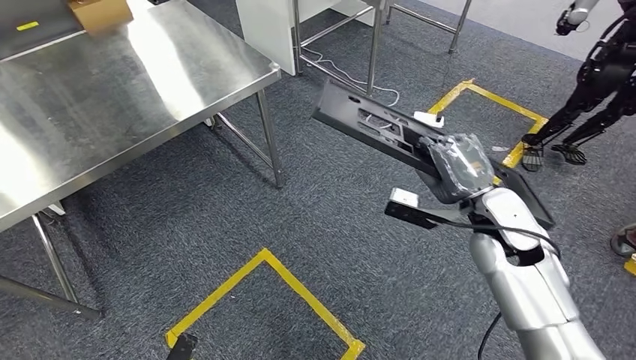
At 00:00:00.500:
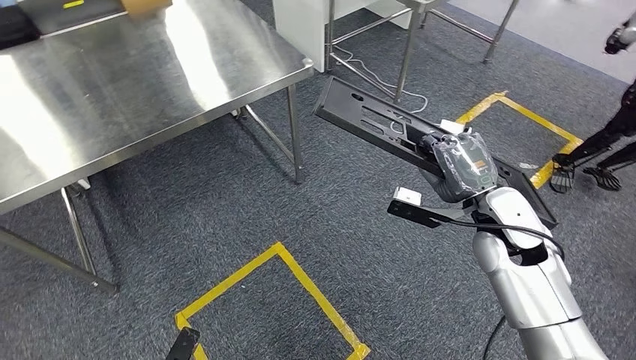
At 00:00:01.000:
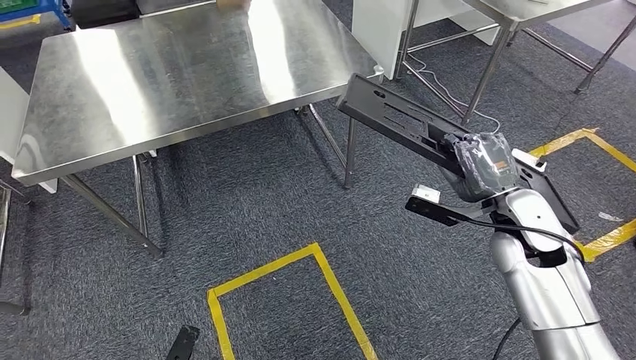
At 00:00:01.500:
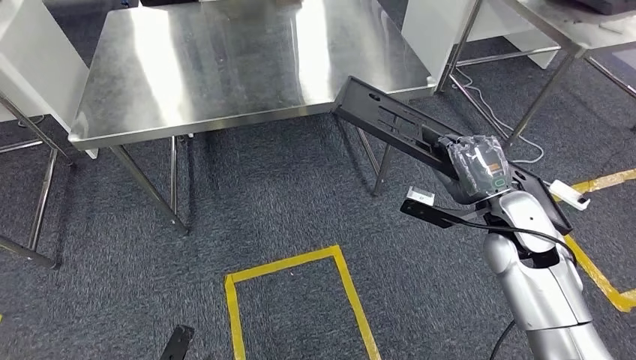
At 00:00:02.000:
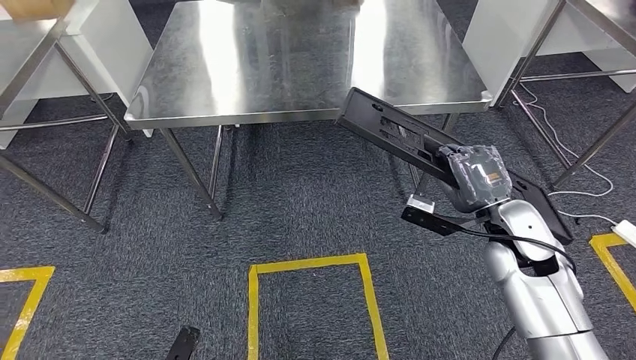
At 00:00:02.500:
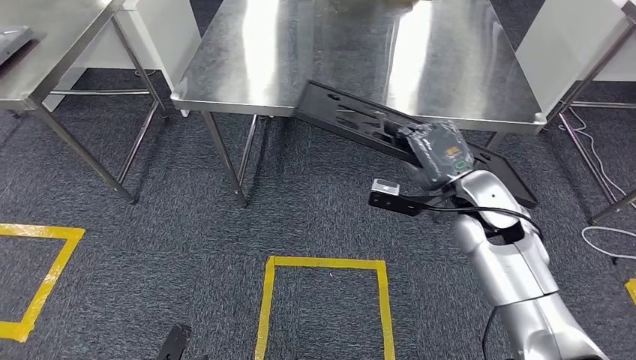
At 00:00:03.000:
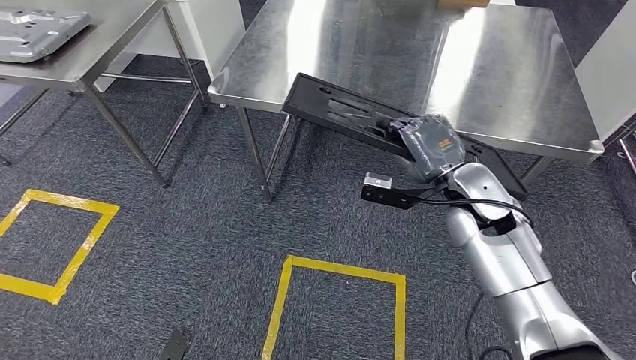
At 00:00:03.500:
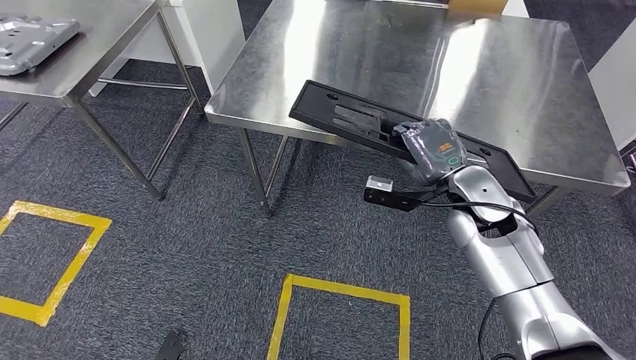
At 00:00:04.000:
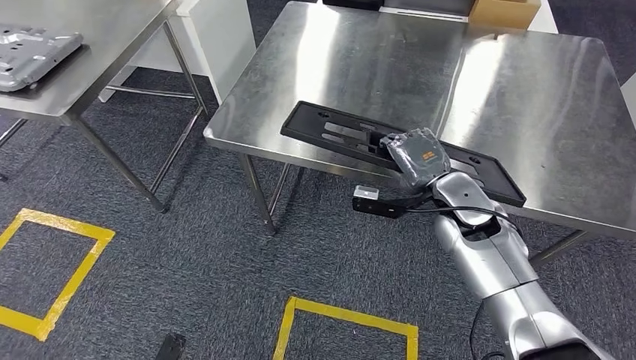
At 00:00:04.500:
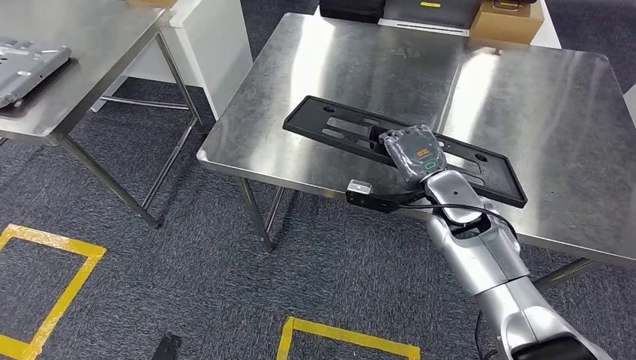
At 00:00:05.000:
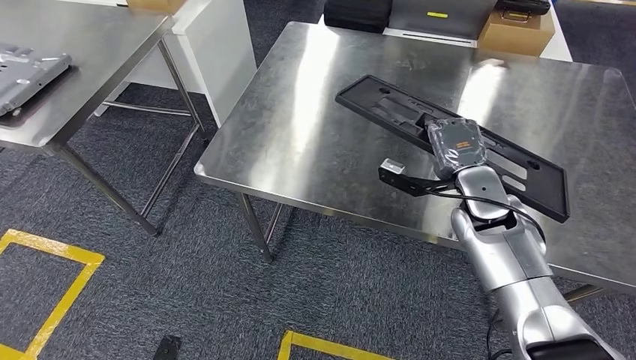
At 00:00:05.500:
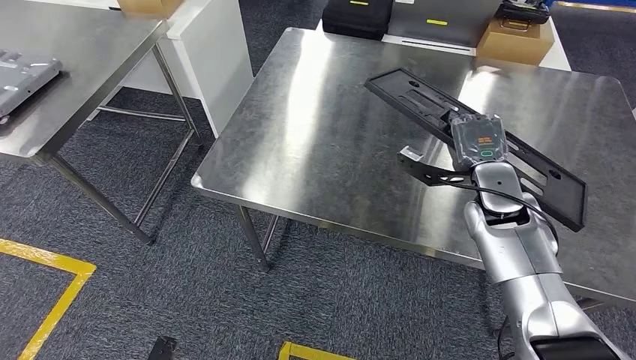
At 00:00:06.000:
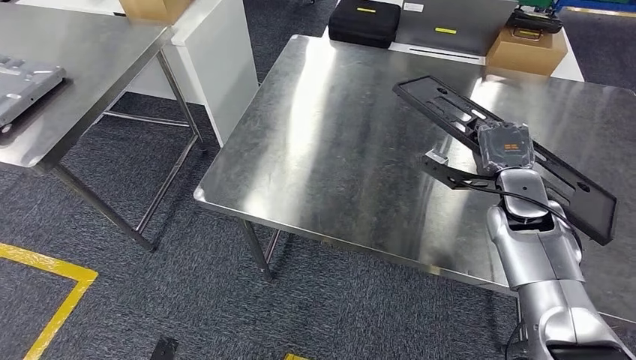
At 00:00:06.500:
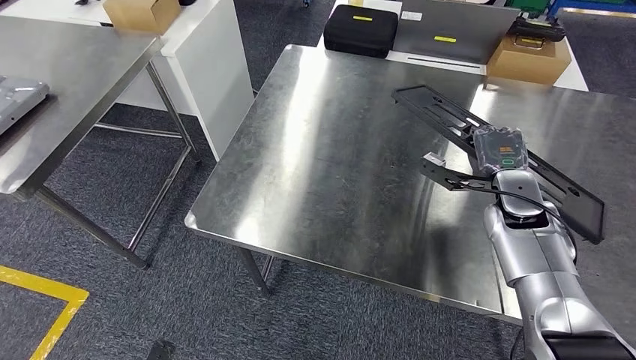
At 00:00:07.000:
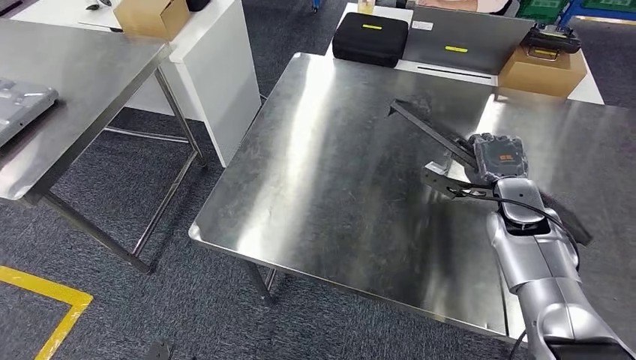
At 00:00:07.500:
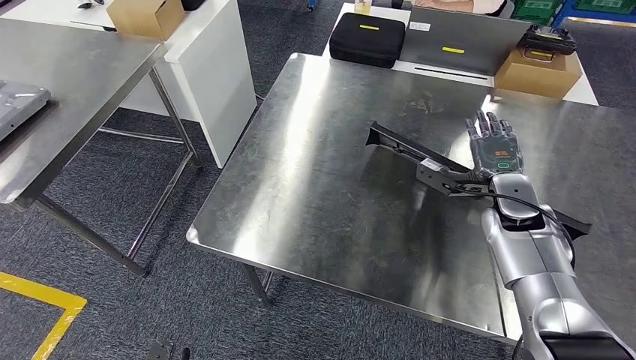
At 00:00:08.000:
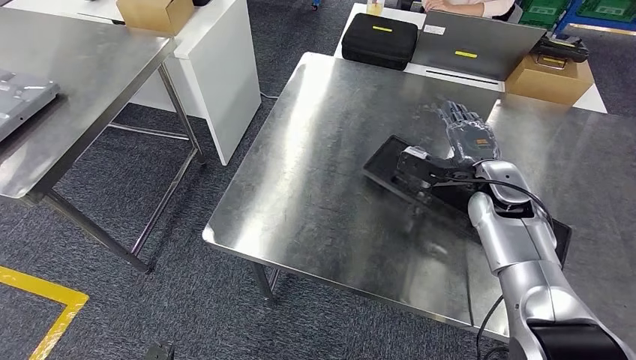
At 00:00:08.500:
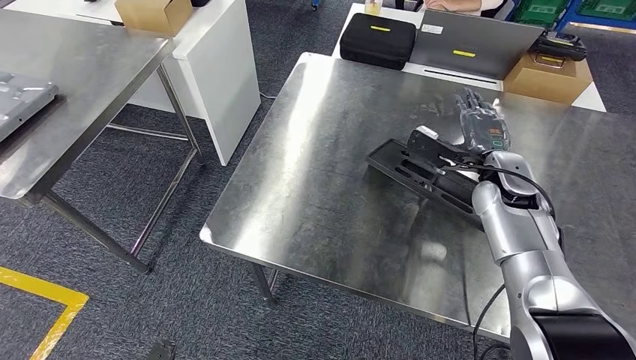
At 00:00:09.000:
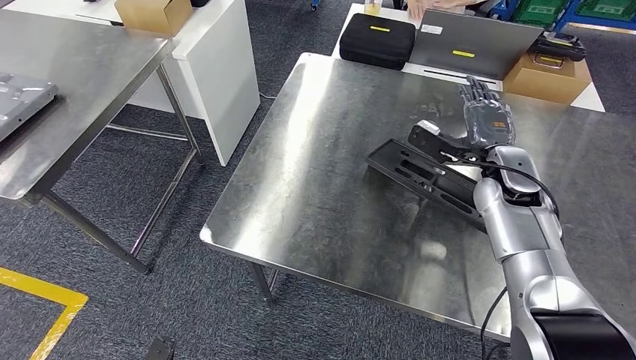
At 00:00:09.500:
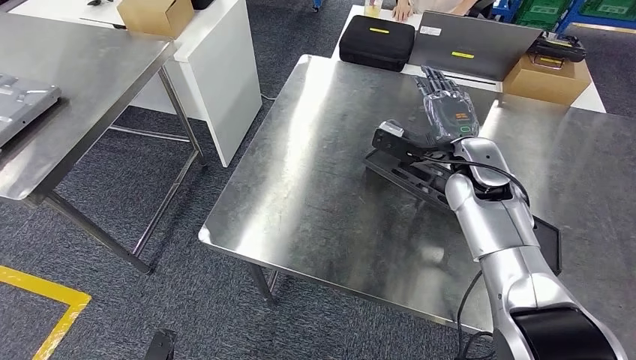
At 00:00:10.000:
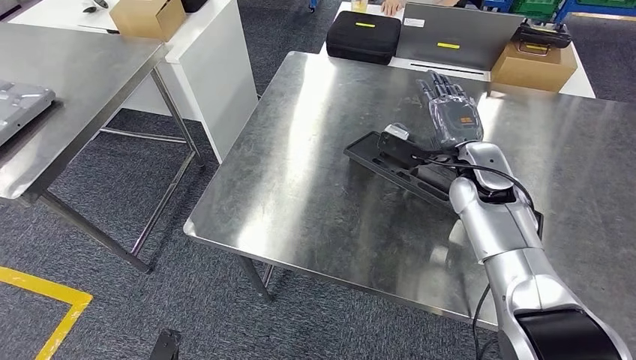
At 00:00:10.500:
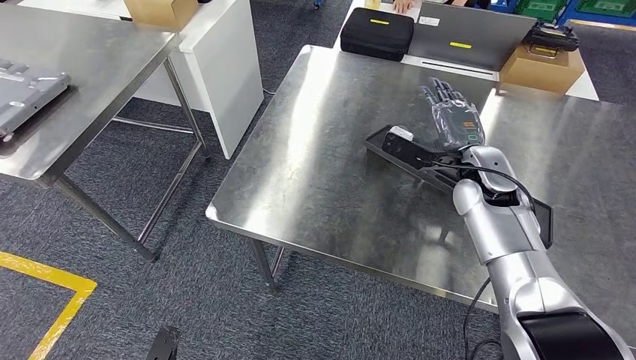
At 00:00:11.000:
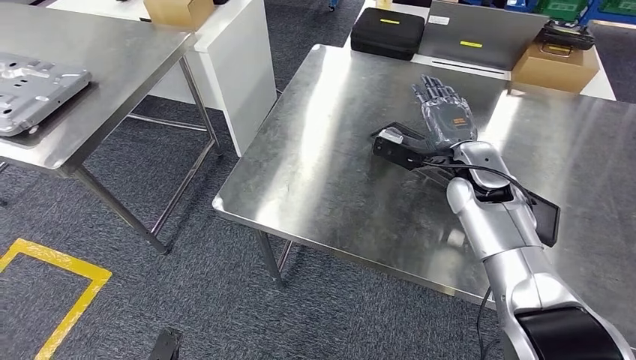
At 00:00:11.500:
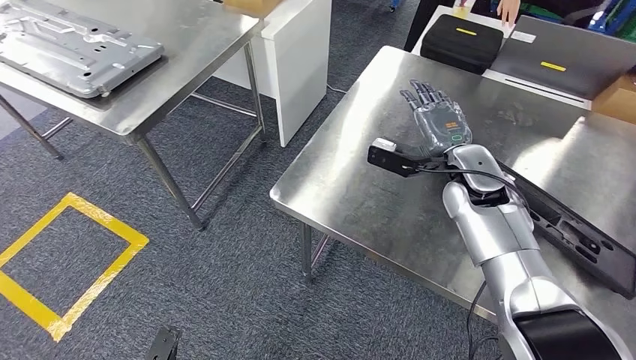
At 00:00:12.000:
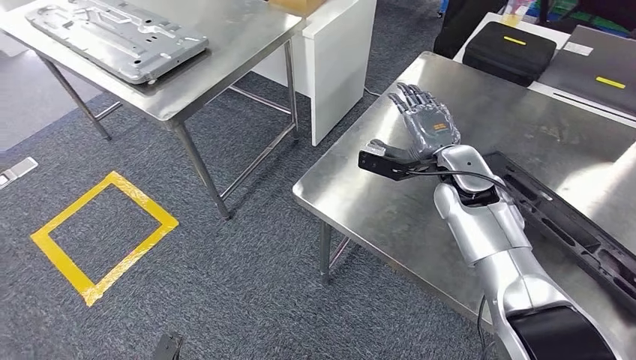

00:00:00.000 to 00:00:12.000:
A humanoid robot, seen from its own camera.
Step, 00:00:00.000 to 00:00:02.000: Move the large material to the workbench.
Step, 00:00:02.500 to 00:00:11.500: Insert the large material into the corresponding slot on the workbench.

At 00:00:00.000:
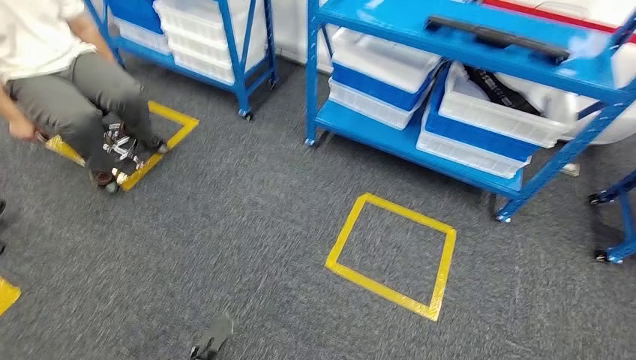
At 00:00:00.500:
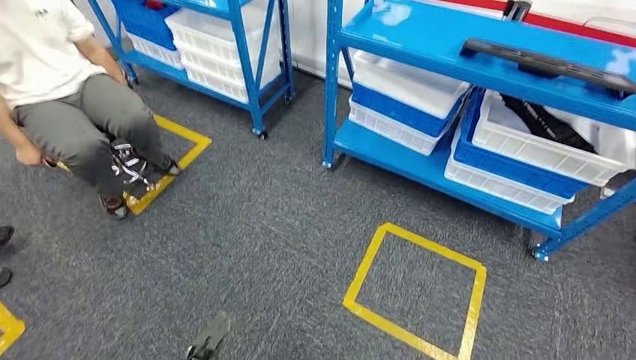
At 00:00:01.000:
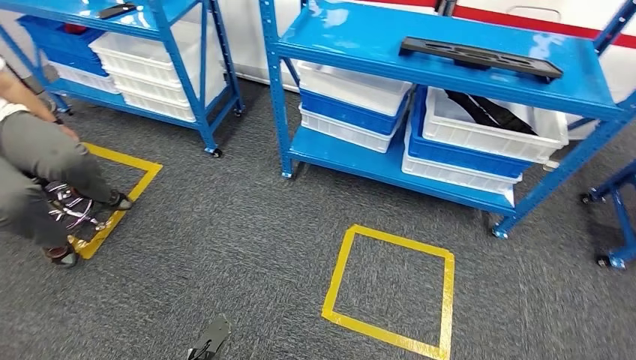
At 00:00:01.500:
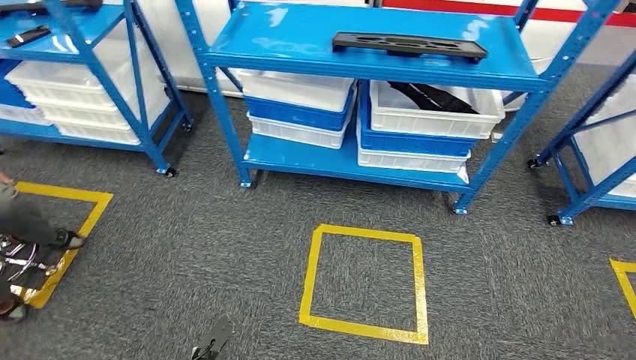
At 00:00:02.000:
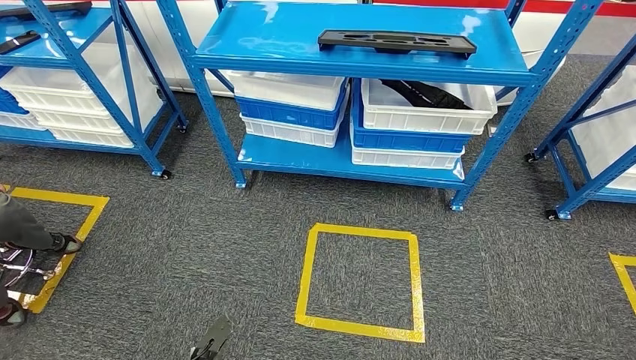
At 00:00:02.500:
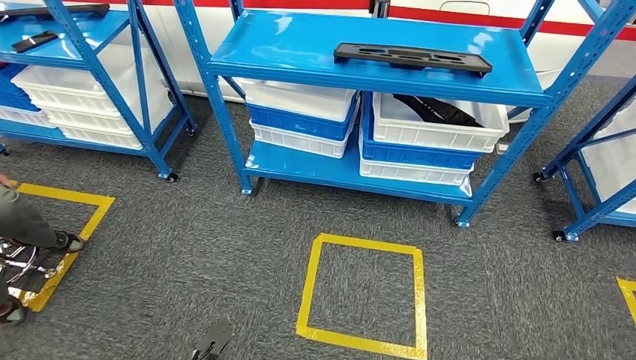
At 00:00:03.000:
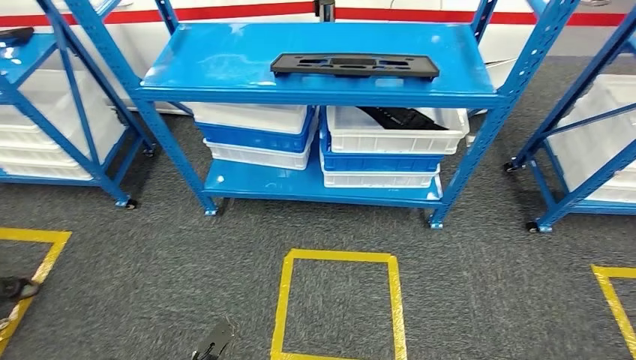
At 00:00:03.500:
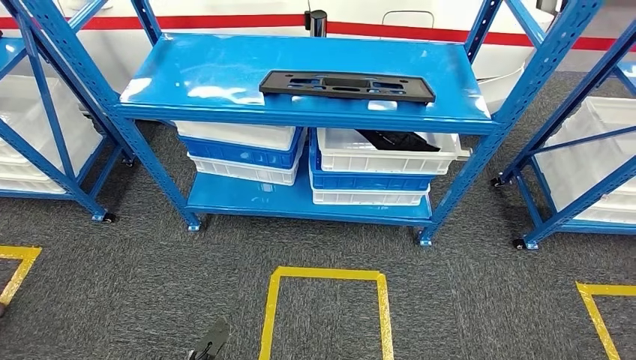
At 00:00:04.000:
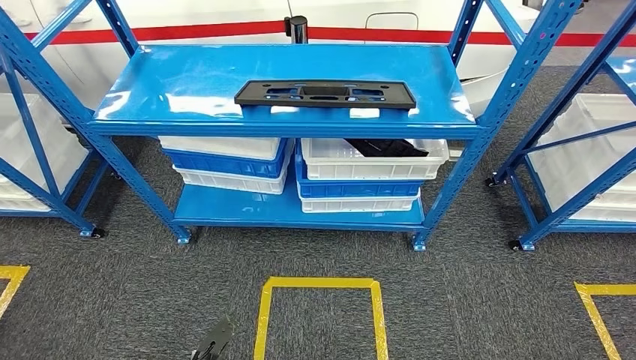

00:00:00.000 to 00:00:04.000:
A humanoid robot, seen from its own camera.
Step, 00:00:00.000 to 00:00:04.000: Return to the initial position at the shelf.

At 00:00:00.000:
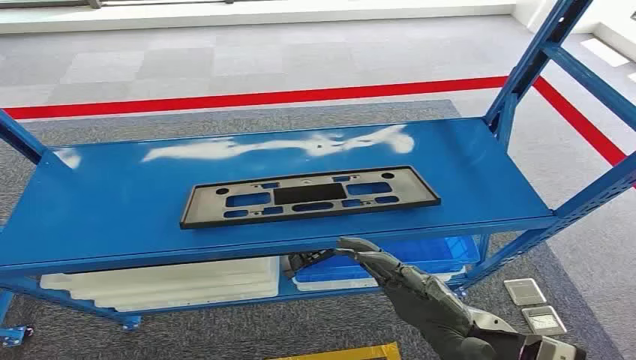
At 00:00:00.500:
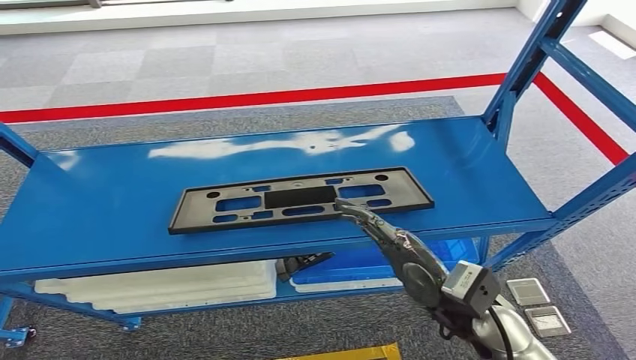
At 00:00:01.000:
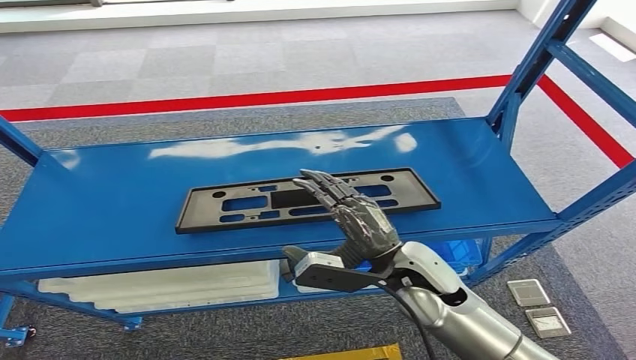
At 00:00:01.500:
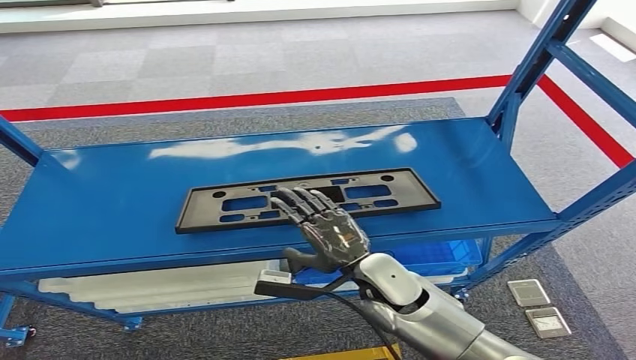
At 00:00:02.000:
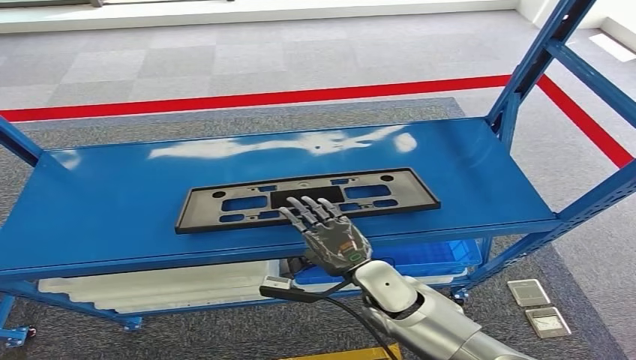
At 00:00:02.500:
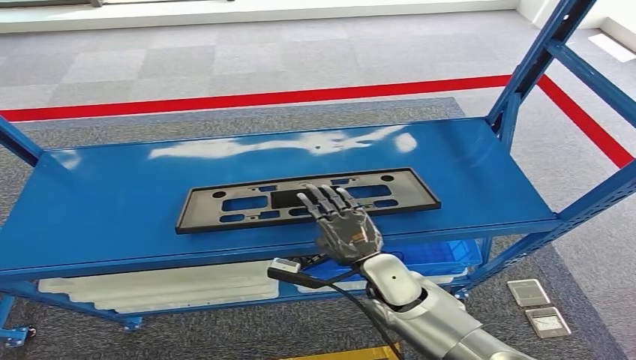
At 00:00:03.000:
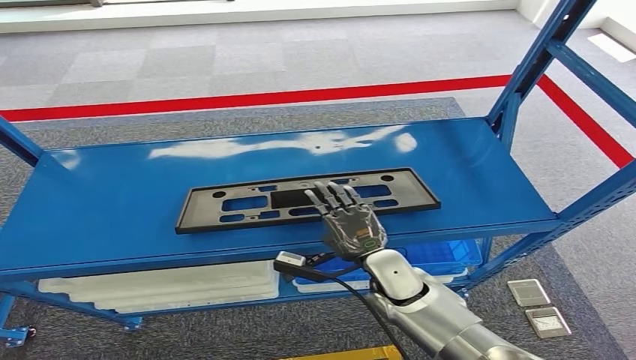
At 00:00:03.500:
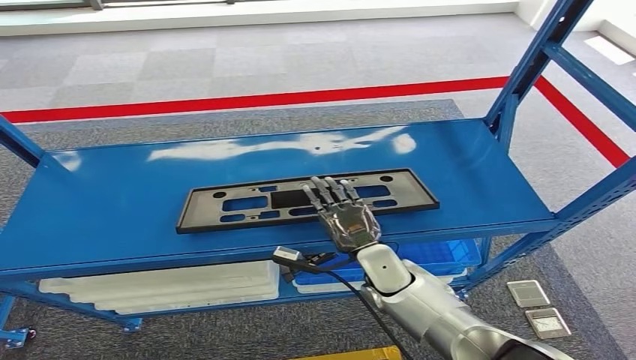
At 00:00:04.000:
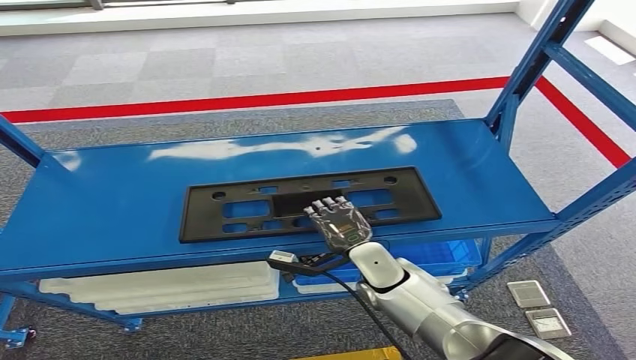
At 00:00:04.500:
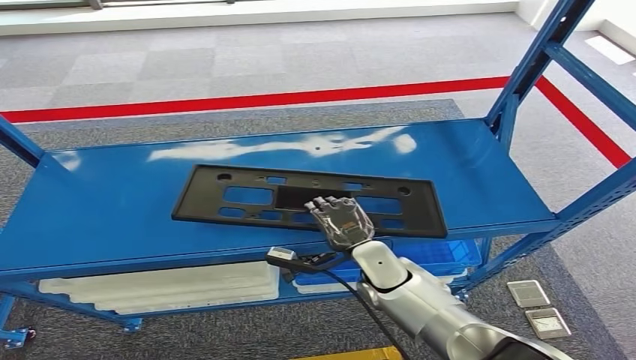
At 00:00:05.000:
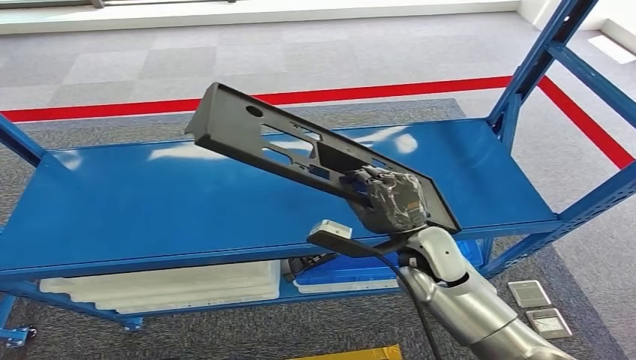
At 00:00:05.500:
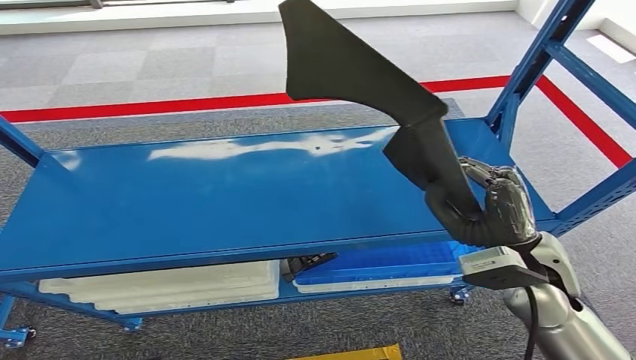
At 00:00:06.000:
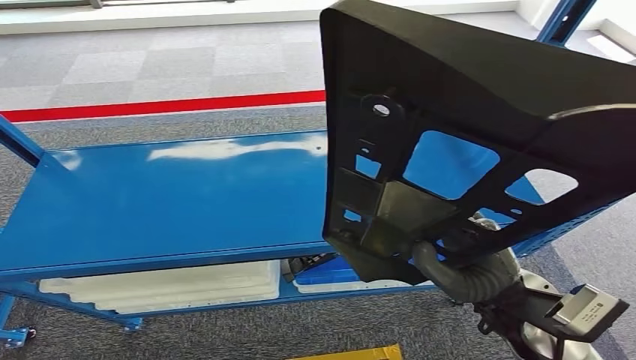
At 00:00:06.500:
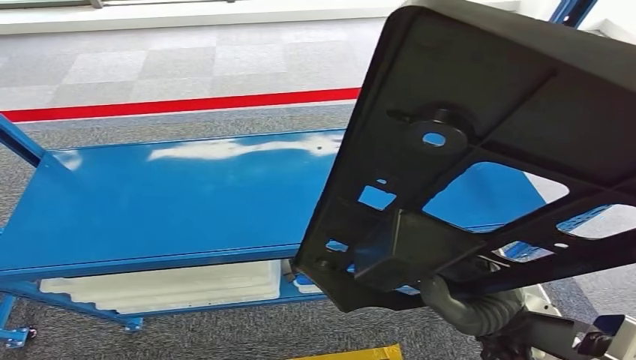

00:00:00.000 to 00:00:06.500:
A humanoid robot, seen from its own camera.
Step, 00:00:00.000 to 00:00:06.000: Pick up the large material from the shelf.
00:00:02.000 to 00:00:04.500: The hands stay close to where they were, moving slightly.
